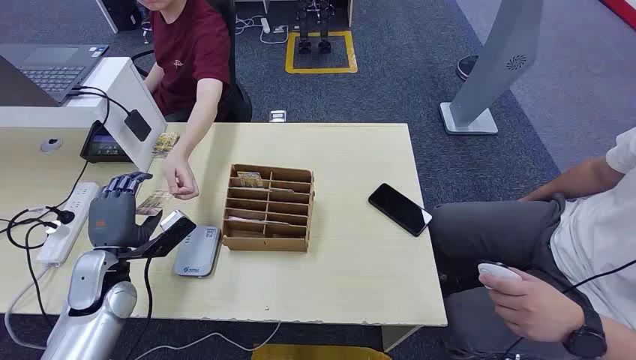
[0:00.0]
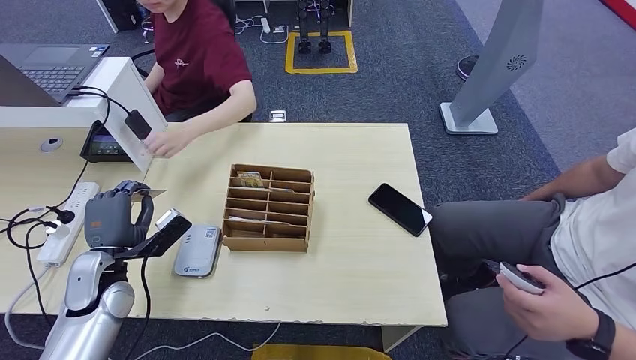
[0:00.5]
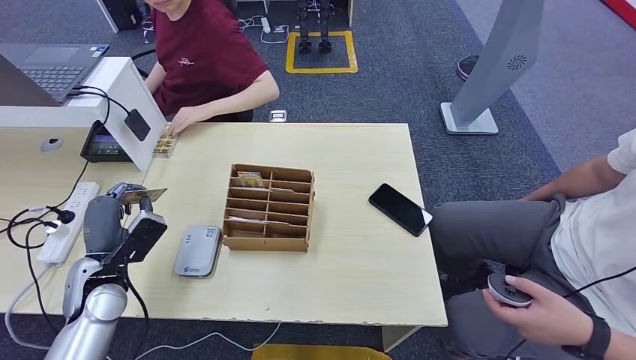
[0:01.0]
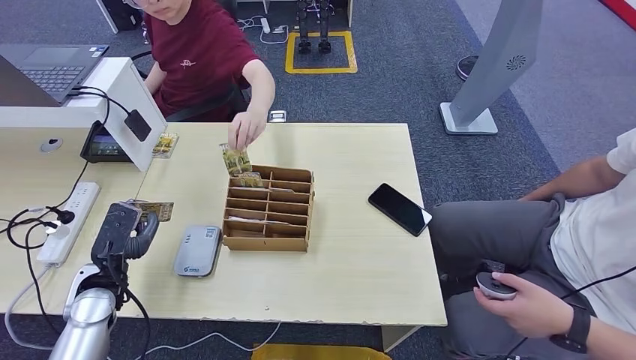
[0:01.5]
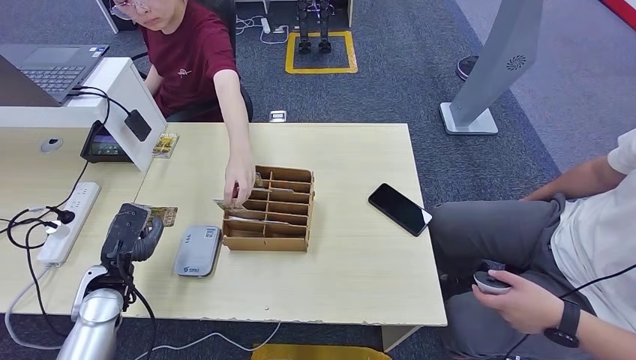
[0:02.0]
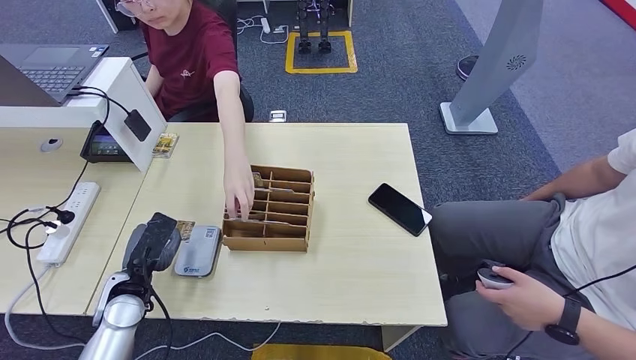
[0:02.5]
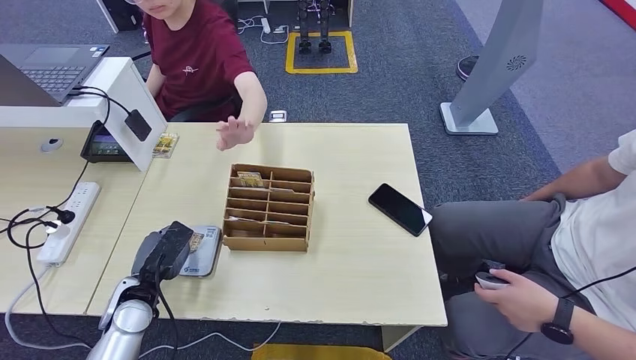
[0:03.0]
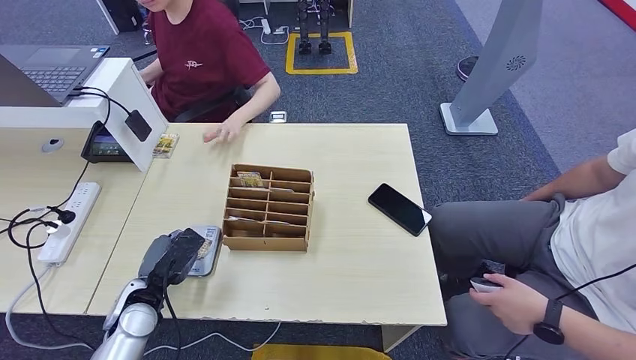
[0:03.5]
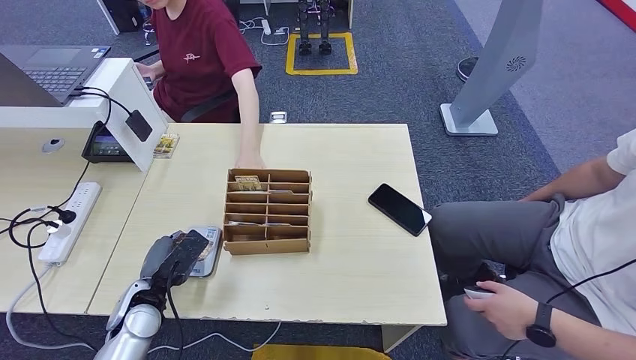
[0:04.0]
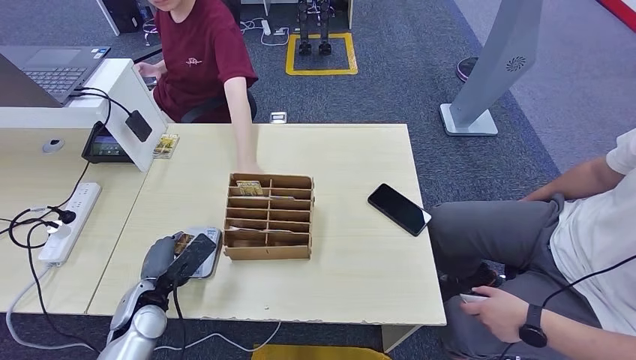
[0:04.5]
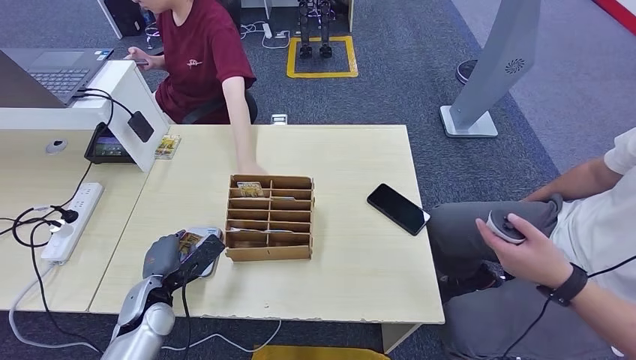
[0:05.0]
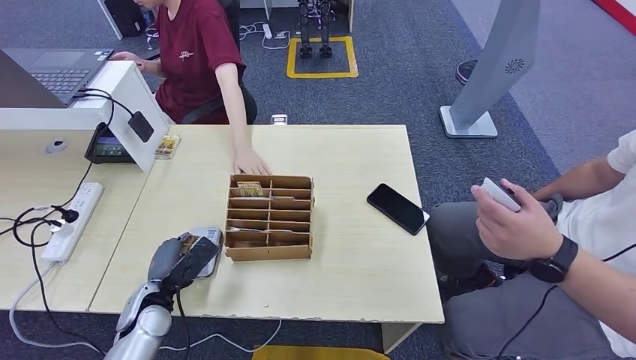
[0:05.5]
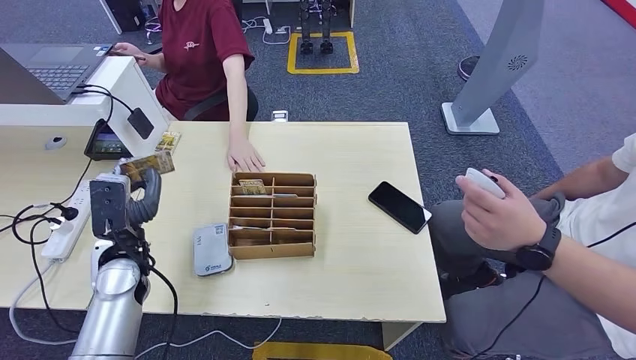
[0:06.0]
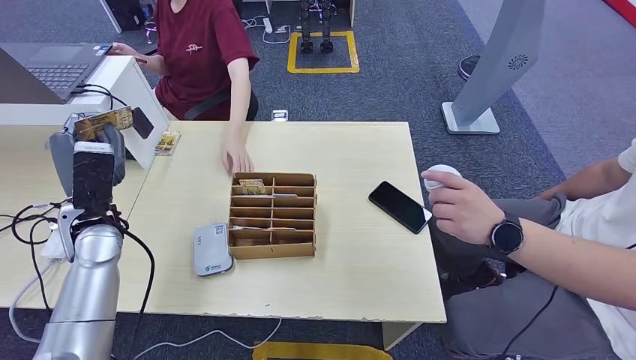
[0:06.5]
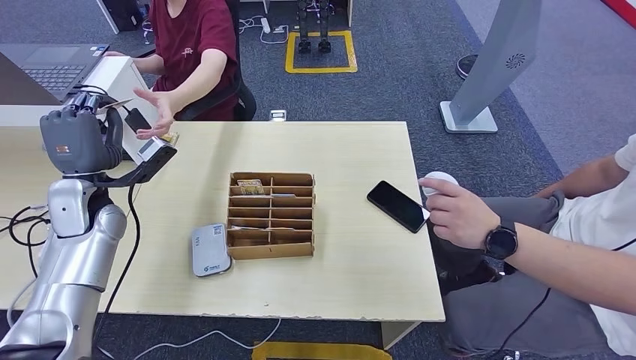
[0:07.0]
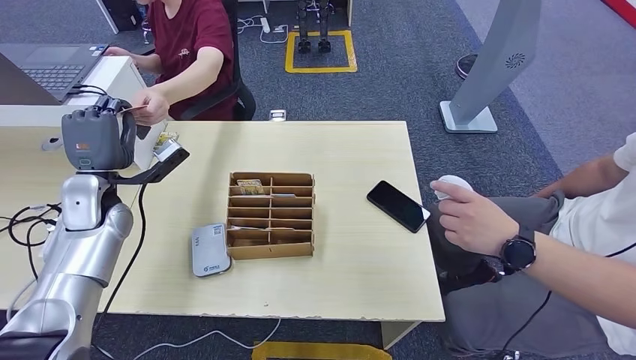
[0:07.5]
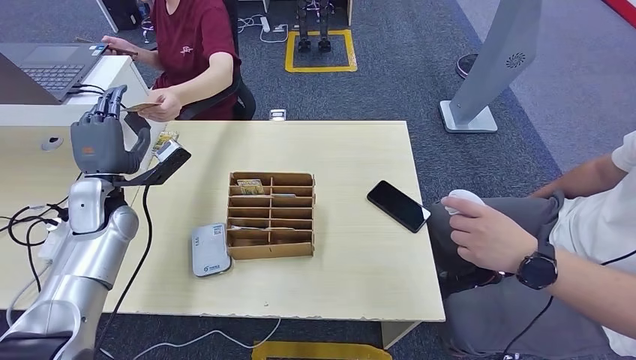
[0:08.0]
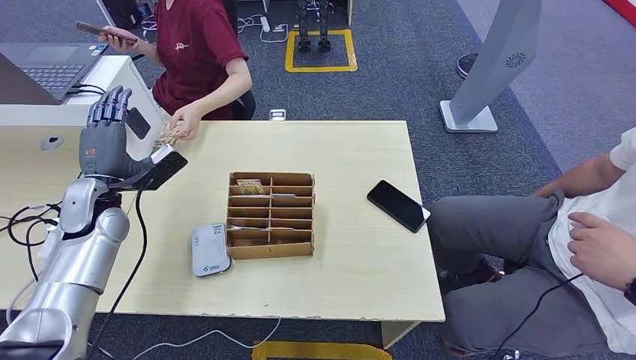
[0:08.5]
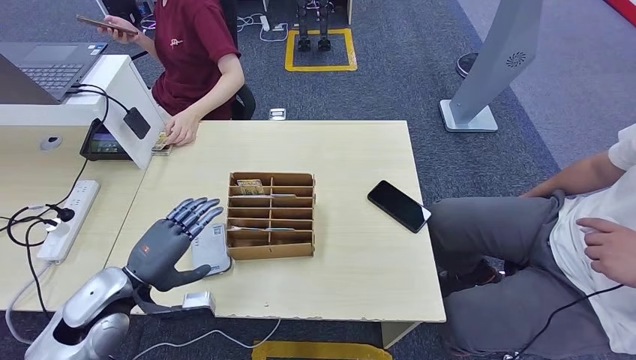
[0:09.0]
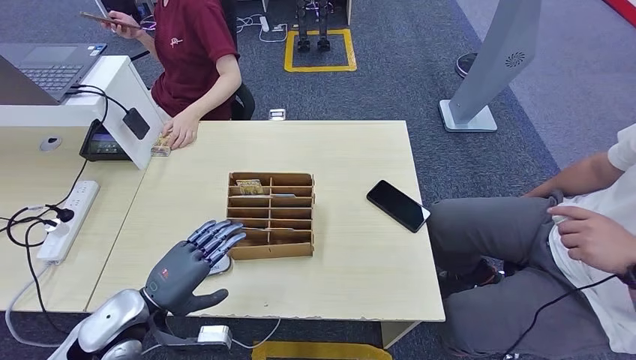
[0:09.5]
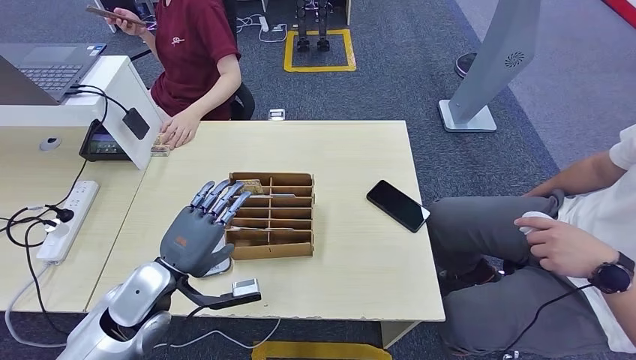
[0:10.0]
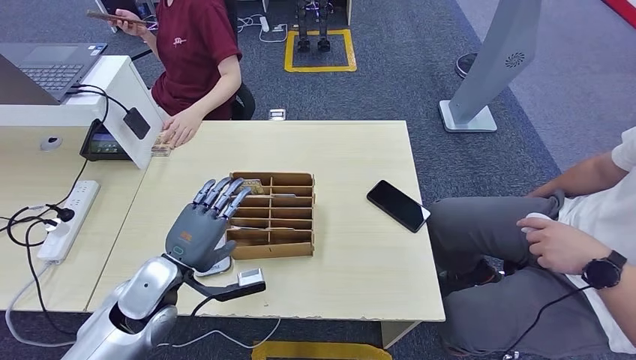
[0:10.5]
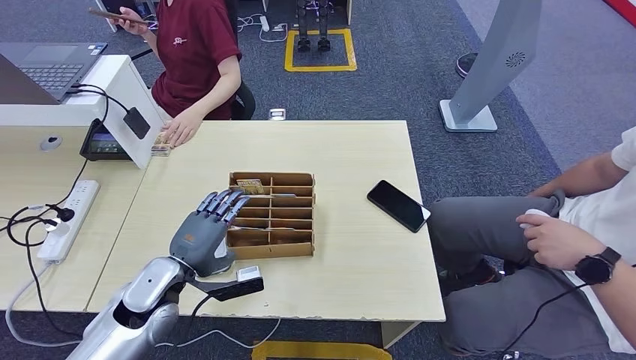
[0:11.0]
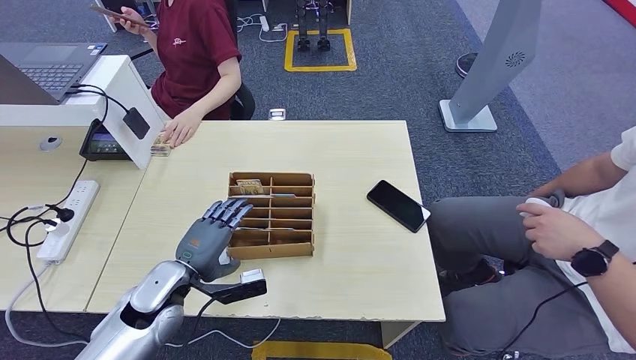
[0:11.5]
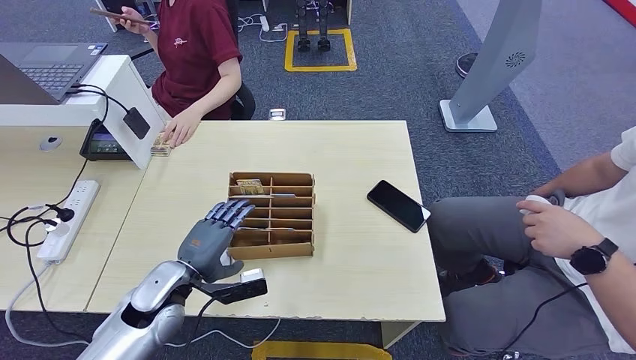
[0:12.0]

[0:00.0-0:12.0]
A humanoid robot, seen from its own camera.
Step, 0:00.0 to 0:00.5: Take the ID card from the person's hand.
Step, 0:01.0 to 0:03.0: Place the ID card on the card reader.
Step, 0:03.5 to 0:08.0: Hand the ID card to the person.
0:02.0 to 0:04.0: The left hand moves roughly 5 cm.

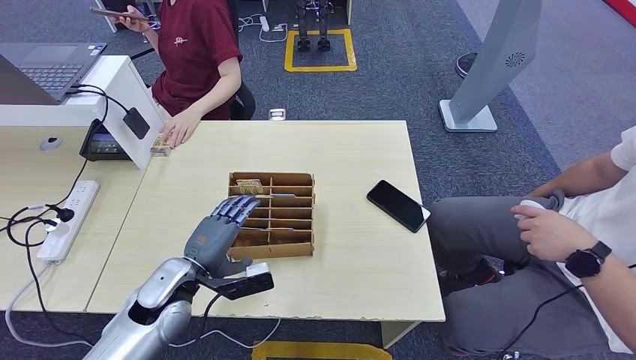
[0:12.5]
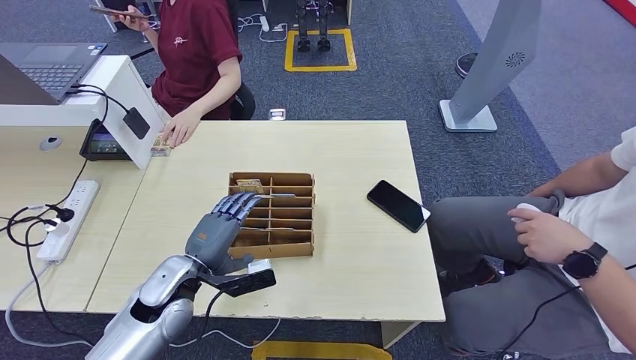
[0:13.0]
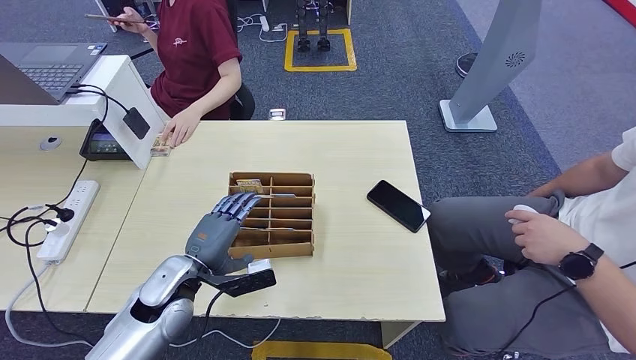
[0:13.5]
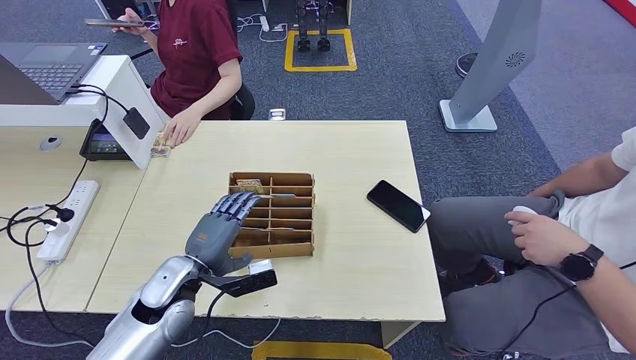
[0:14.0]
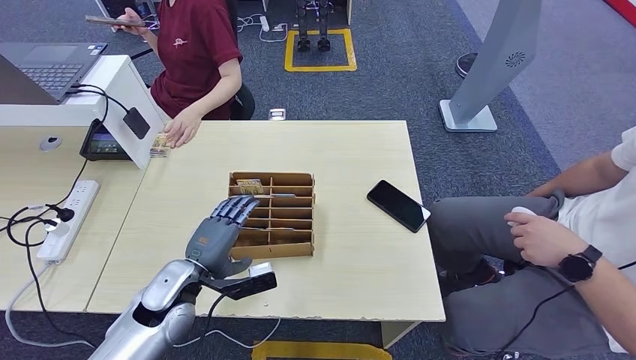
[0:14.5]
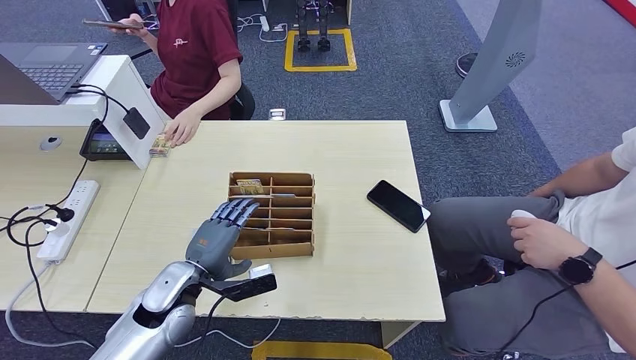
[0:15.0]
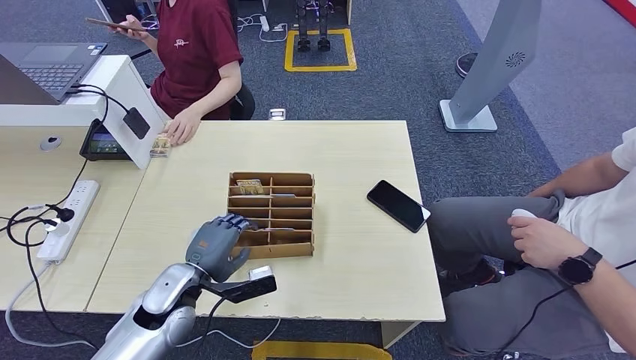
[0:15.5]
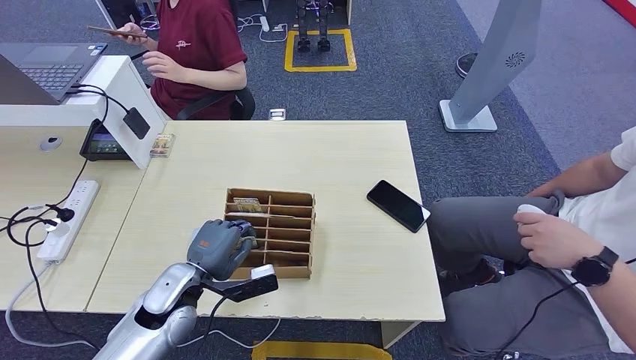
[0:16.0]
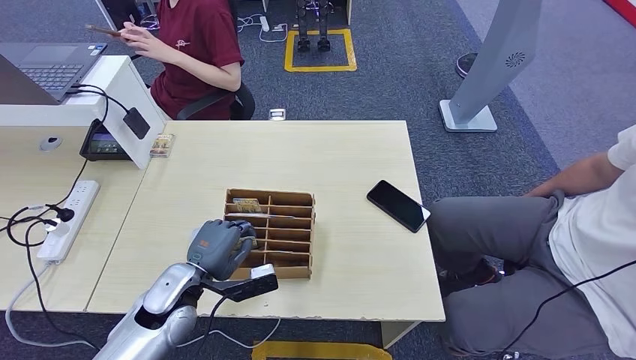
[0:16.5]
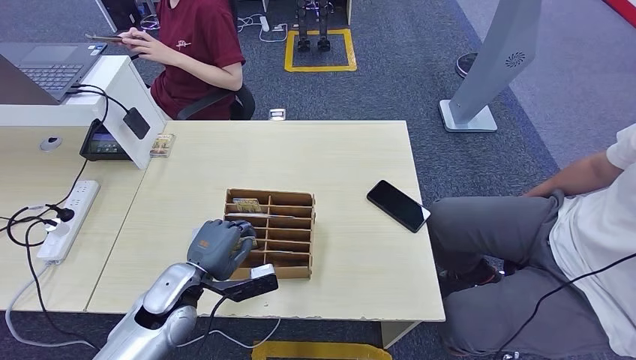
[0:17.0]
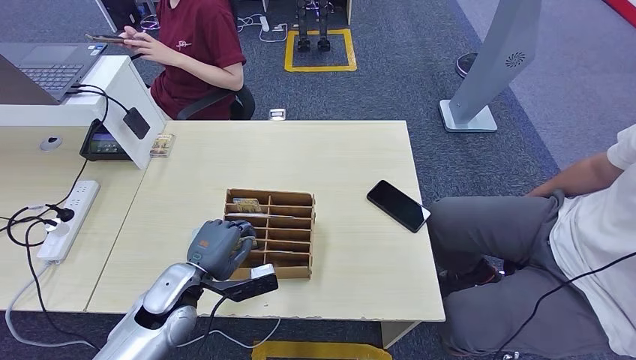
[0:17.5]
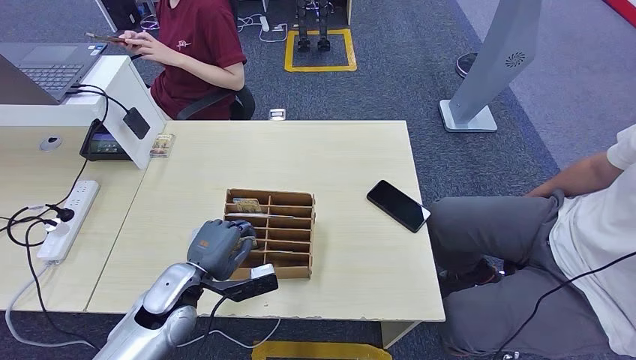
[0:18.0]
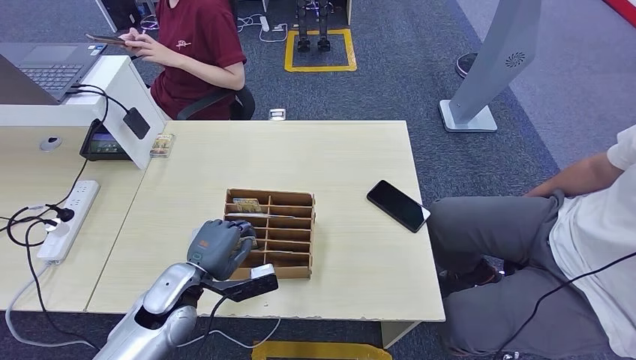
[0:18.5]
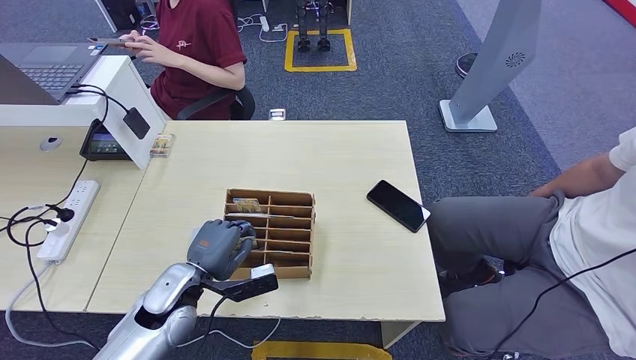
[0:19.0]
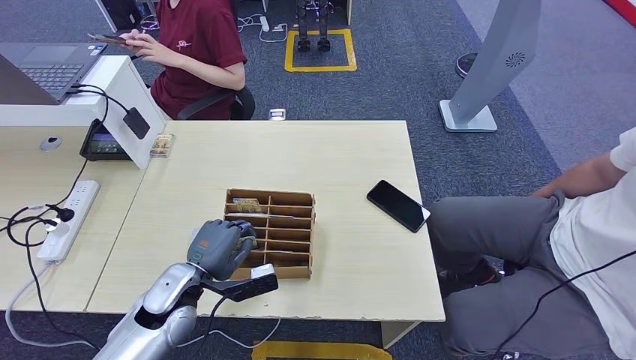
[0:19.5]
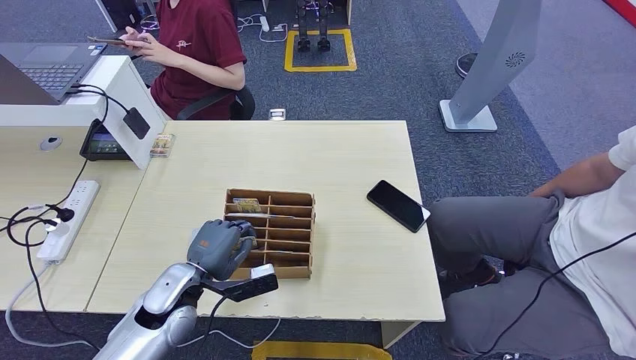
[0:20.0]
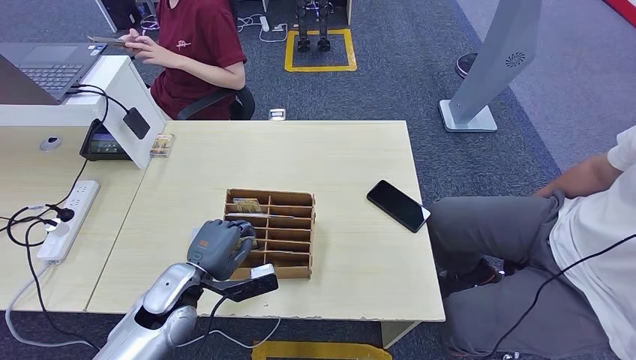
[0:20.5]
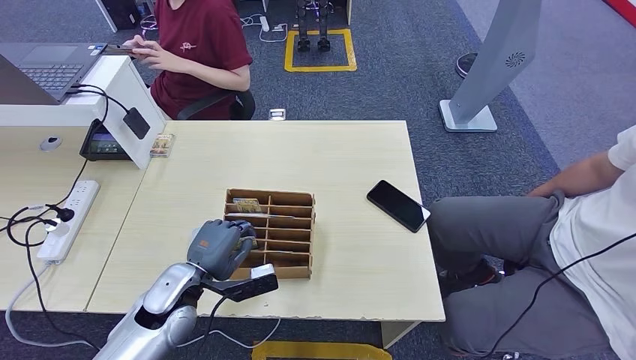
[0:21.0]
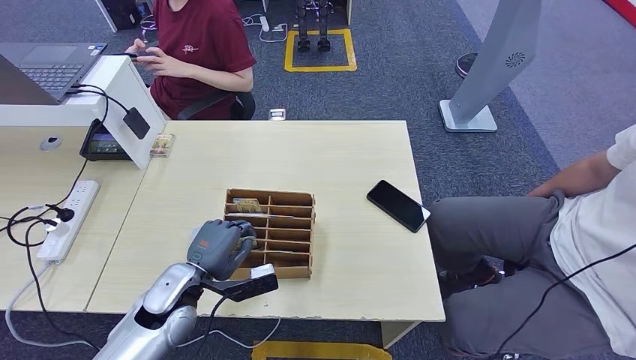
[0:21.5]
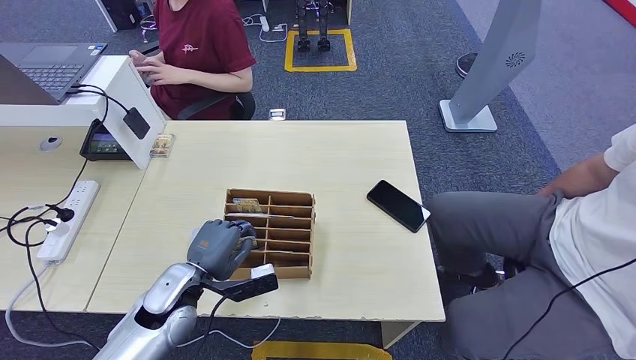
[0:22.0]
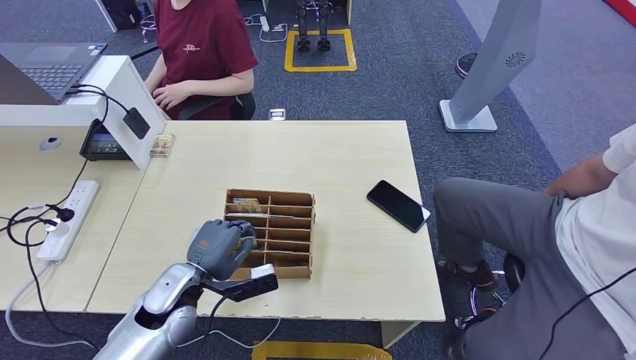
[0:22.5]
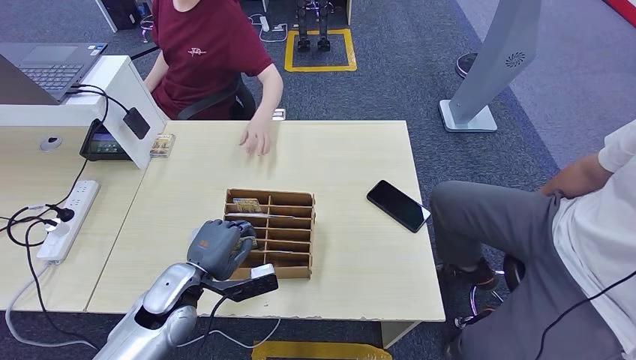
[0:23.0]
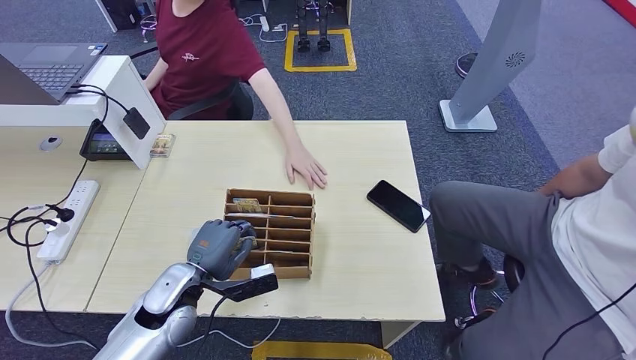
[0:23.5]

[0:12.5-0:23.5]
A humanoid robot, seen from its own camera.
0:12.5 to 0:23.5: Neither hand changes place.
